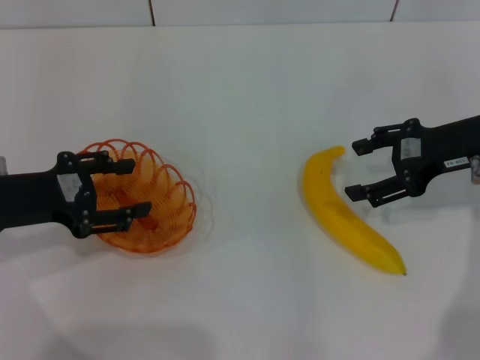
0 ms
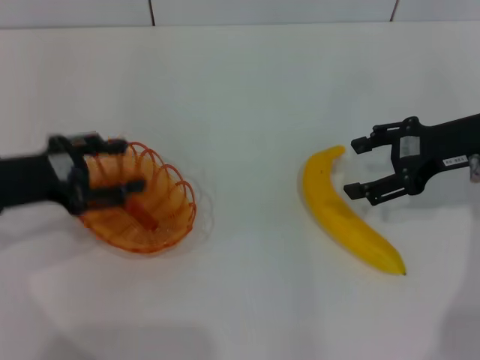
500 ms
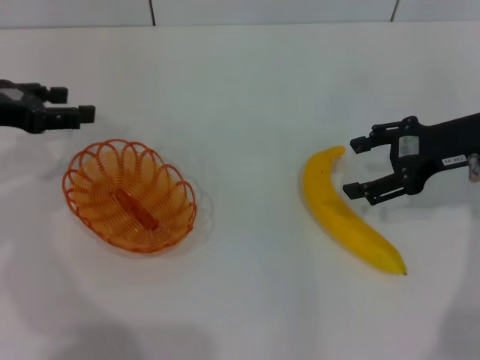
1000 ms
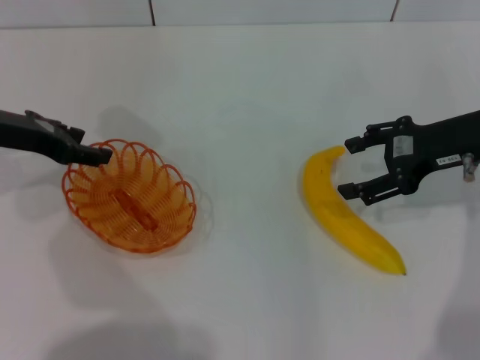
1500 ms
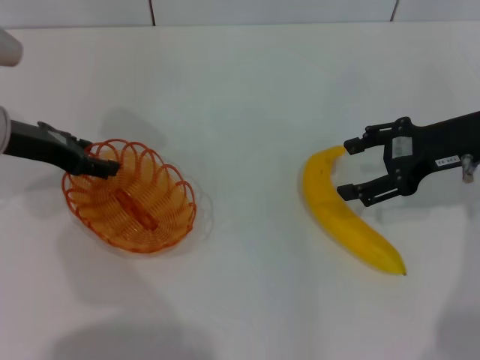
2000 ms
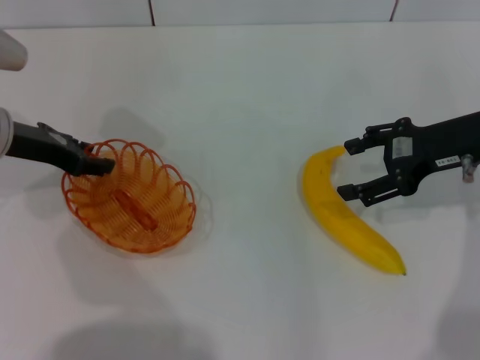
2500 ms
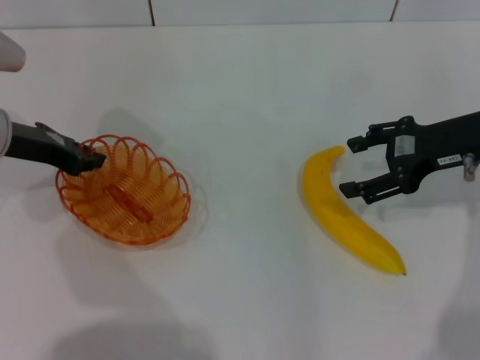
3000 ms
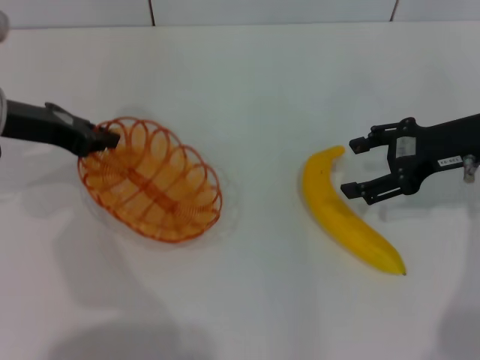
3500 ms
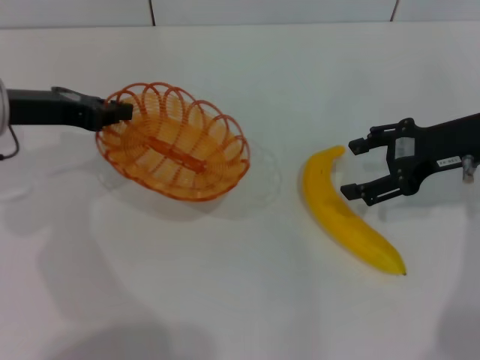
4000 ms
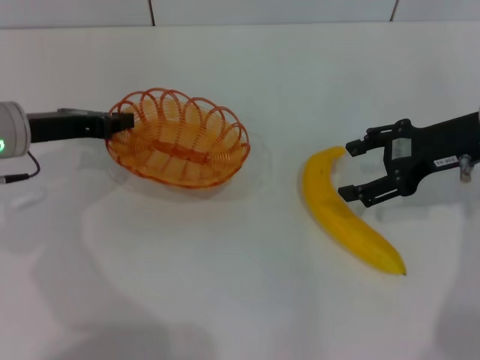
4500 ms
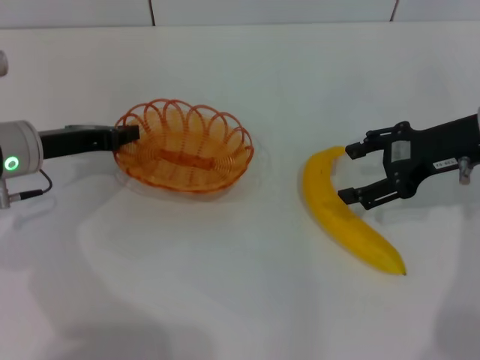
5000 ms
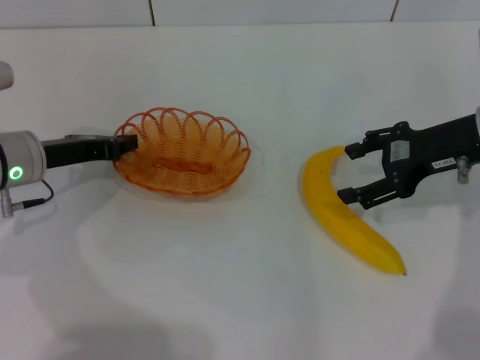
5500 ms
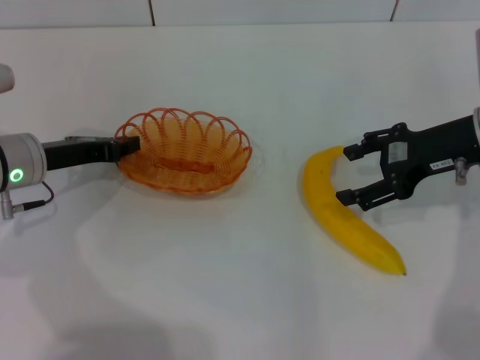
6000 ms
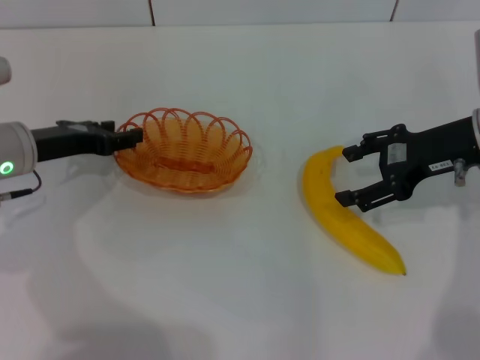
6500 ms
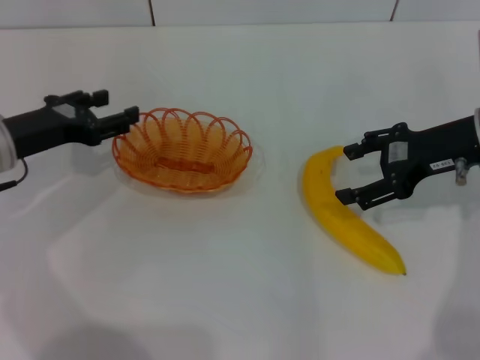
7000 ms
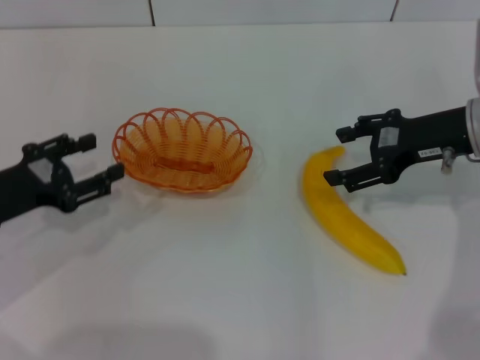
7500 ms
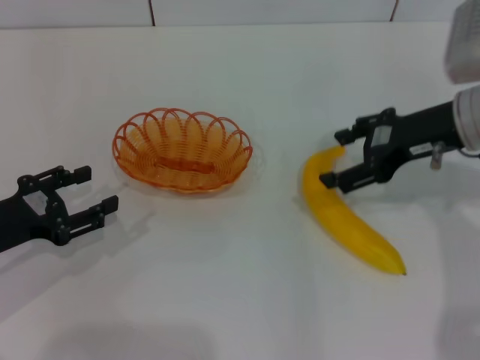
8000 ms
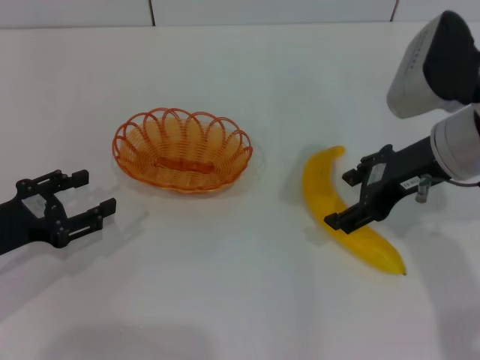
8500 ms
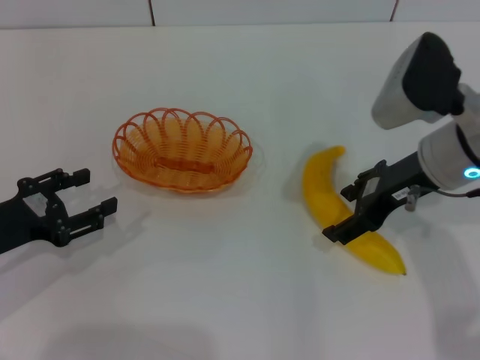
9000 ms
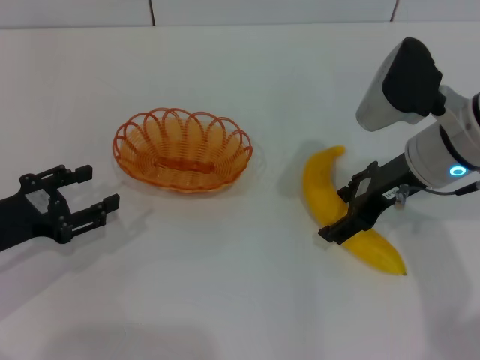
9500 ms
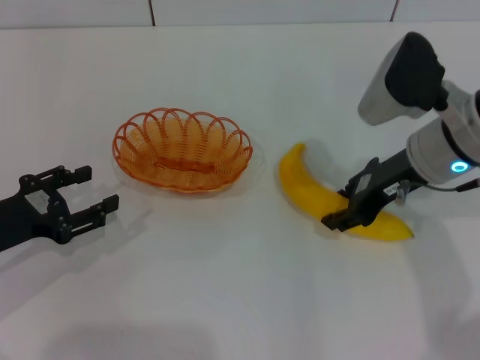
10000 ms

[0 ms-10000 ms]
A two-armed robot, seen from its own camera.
Step, 0 ms to 3500 ms: Pick up the basket with the left gripper.
Step, 4000 ms to 7000 ms: Place the basket in the center of view with the left gripper.
0 ms to 2000 ms: The left gripper moves forward, roughly 10 cm.
2000 ms to 4000 ms: The left gripper closes its fingers.
4000 ms to 6000 ms: The left gripper heads downward, covering approximately 10 cm.
6000 ms to 8000 ms: The left gripper goes approximately 10 cm backward and to the left, and opens.
8000 ms to 10000 ms: The right gripper closes up.

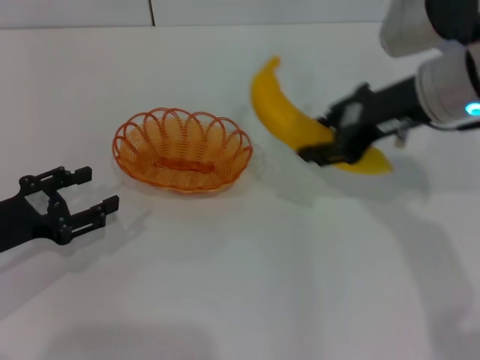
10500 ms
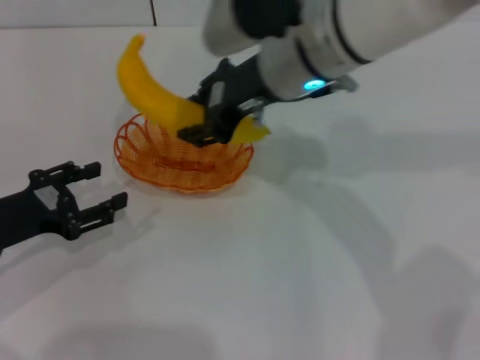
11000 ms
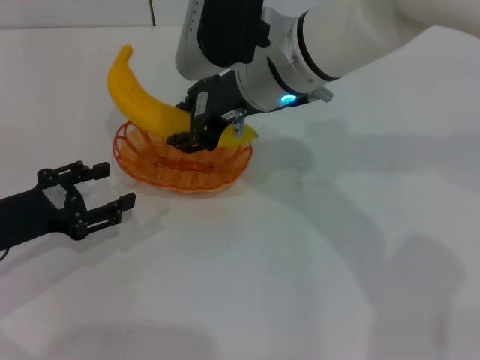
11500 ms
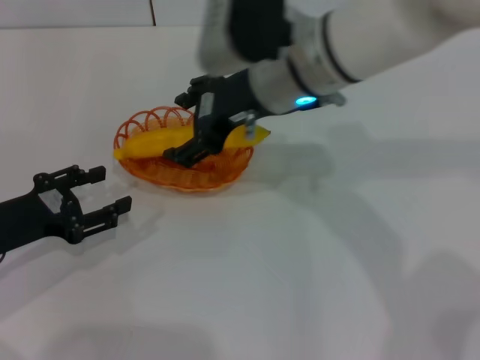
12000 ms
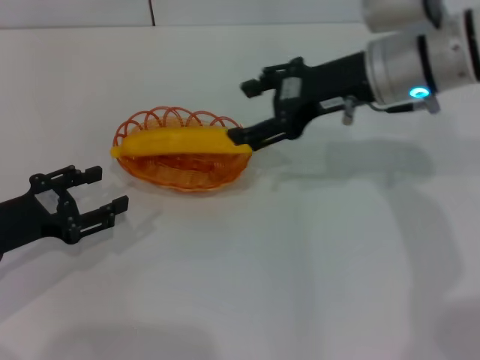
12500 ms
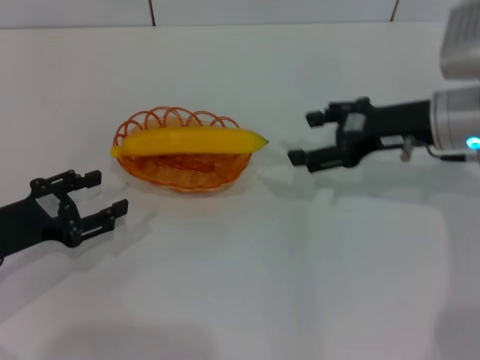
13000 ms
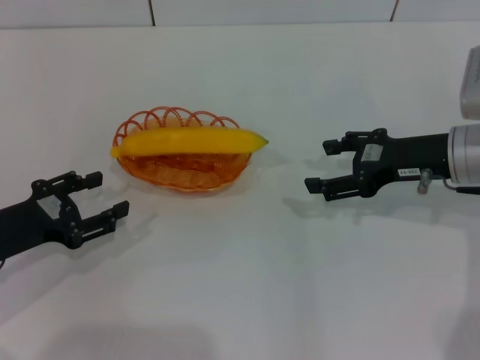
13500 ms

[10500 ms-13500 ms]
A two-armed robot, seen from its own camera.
Step, 10500 ms to 12000 ms: Place the banana into the basket with the right gripper.
10500 ms to 12000 ms: The right gripper heads to the left, covering some 10 cm, and opens.
12000 ms to 13500 ms: The right gripper travels to the right and downward by about 20 cm.

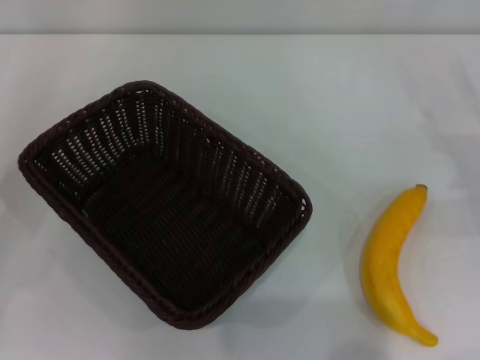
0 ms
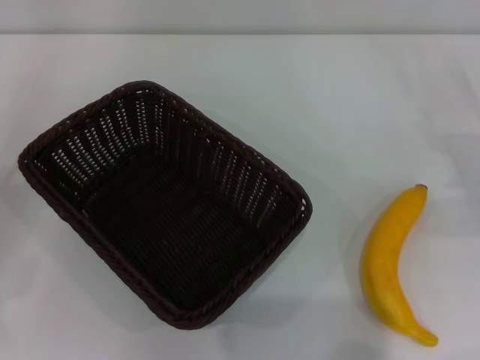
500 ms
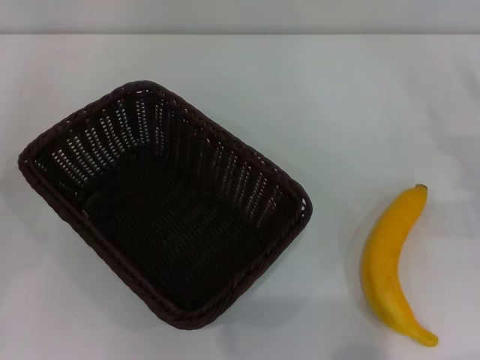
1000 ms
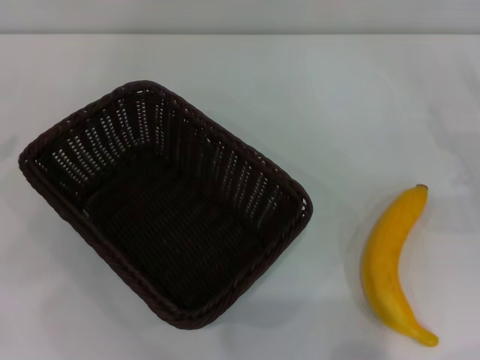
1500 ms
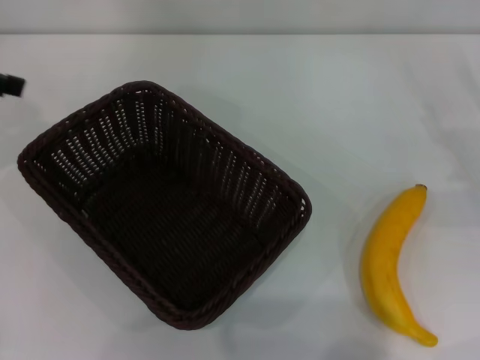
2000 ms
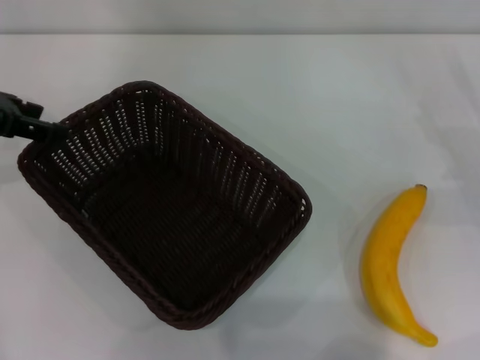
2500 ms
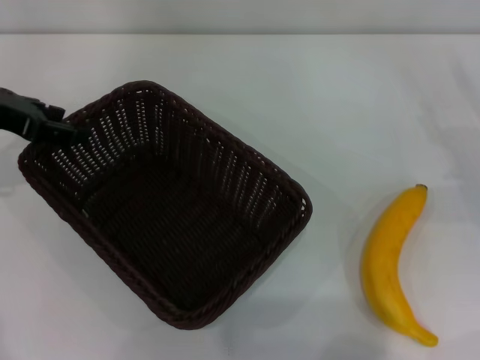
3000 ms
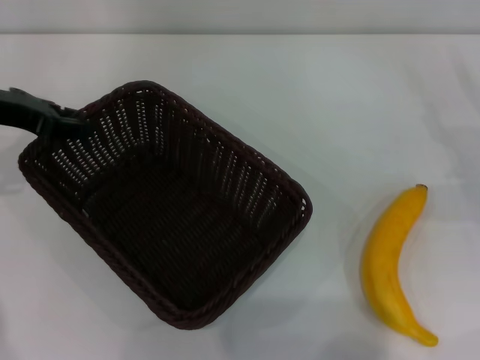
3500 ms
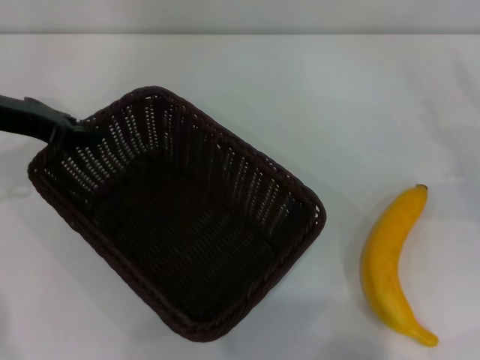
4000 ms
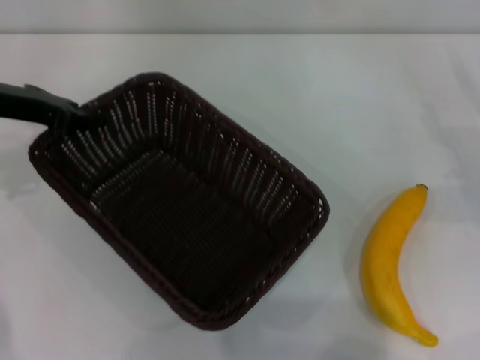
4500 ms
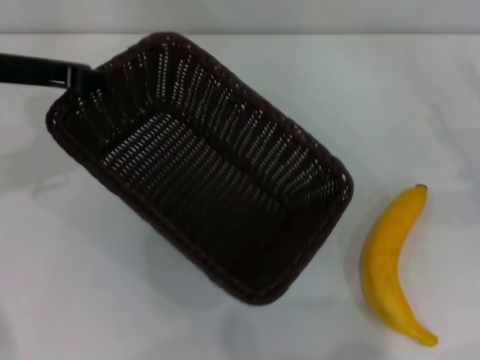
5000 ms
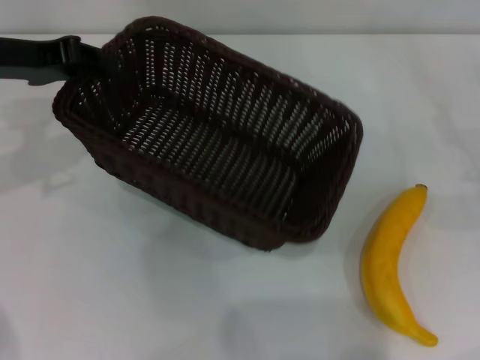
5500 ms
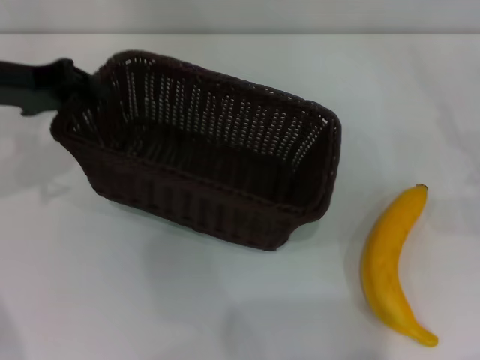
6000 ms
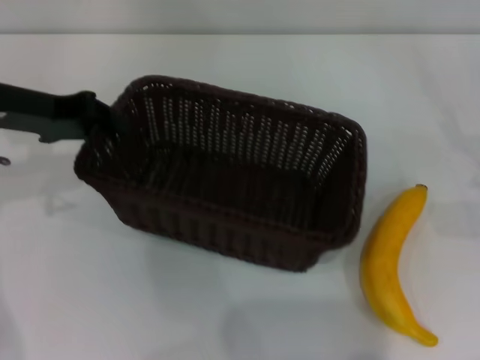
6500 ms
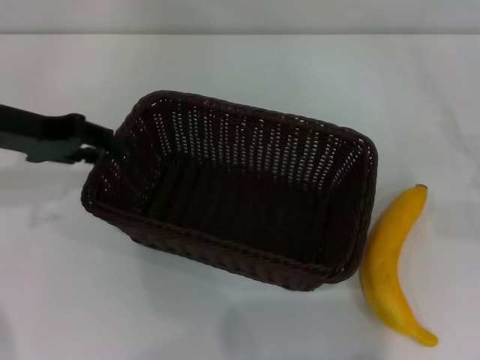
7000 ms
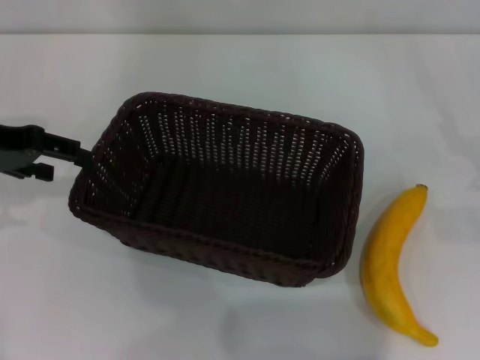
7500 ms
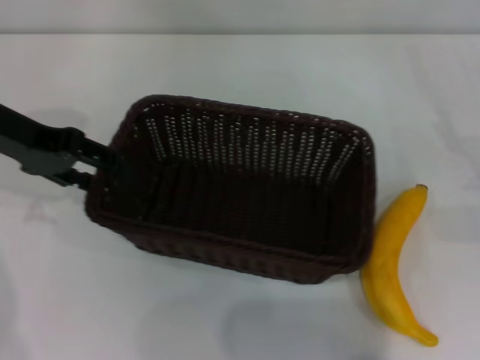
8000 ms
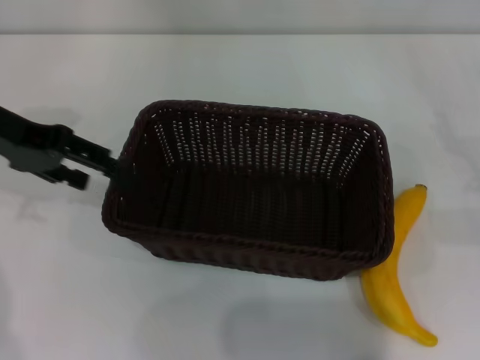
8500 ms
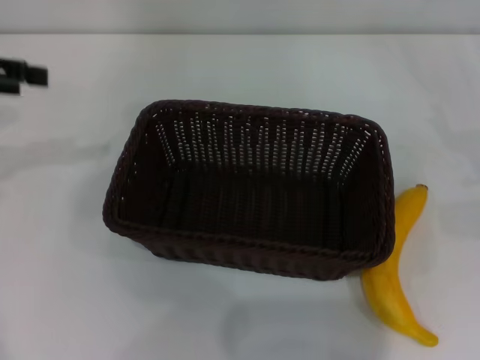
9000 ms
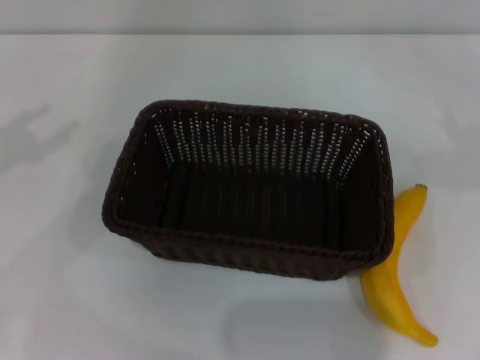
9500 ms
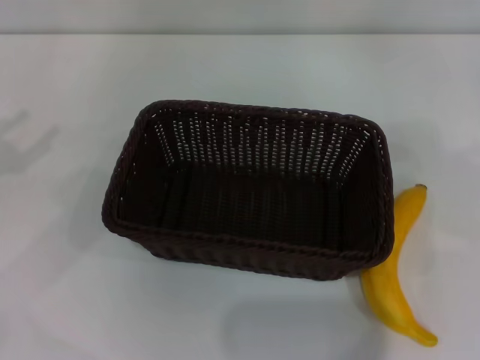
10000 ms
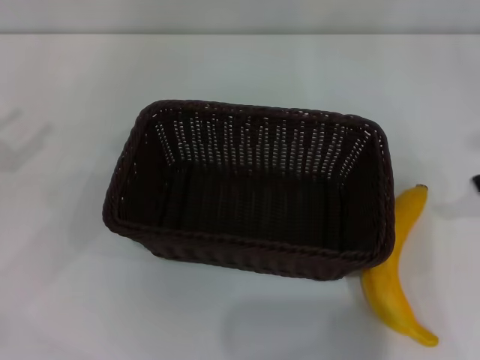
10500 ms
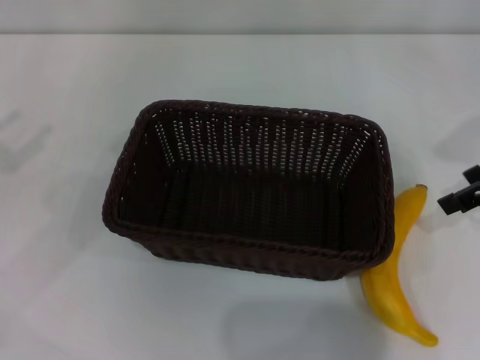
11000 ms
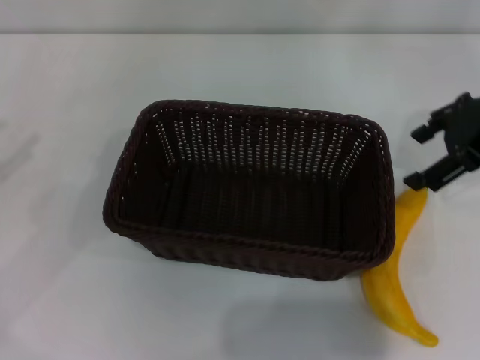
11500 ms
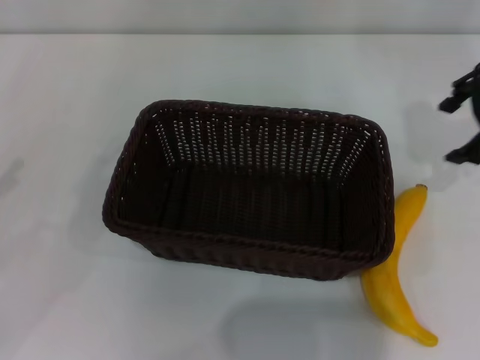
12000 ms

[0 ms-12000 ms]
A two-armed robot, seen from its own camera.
Step, 0 ms to 5000 ms: Pick up the dark basket with the left gripper.
Step, 5500 ms to 8500 ms: Place the dark basket in the center of view with the left gripper.
0 ms to 2000 ms: The left gripper moves upward and forward, some 20 cm.
2000 ms to 4000 ms: The left gripper travels downward and to the right by some 10 cm, and closes its fingers.
6000 ms to 8000 ms: The left gripper opens up.
8000 ms to 10000 ms: The right gripper is displaced upward by approximately 20 cm; the left gripper moves to the left and backward, roughly 15 cm.
10000 ms to 12000 ms: The right gripper travels to the left and forward by some 20 cm.
